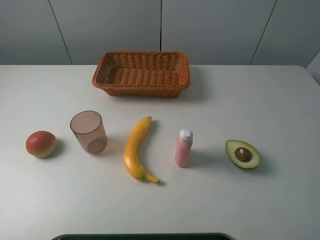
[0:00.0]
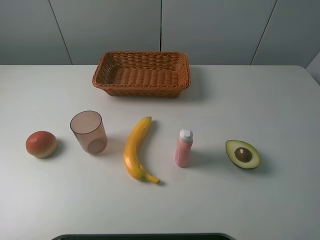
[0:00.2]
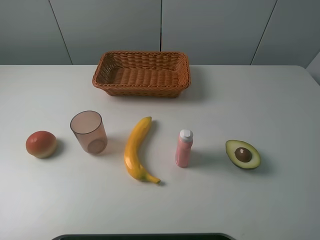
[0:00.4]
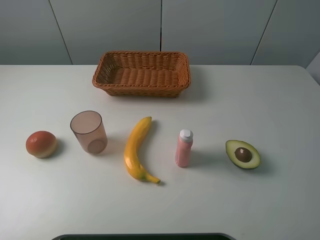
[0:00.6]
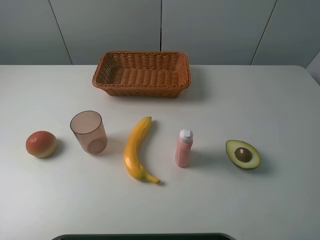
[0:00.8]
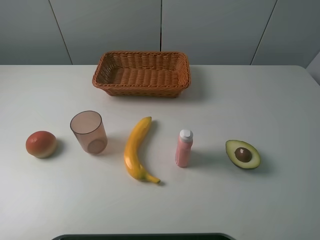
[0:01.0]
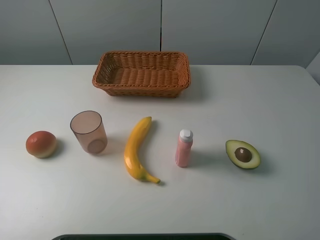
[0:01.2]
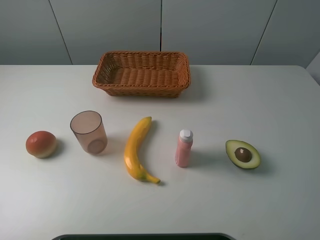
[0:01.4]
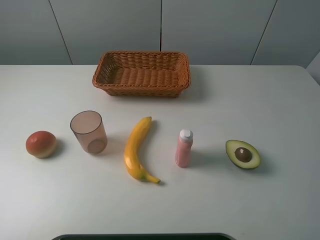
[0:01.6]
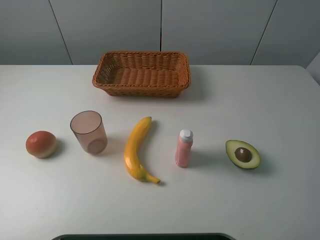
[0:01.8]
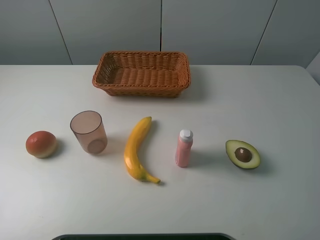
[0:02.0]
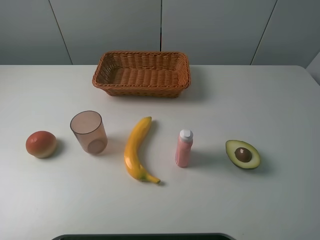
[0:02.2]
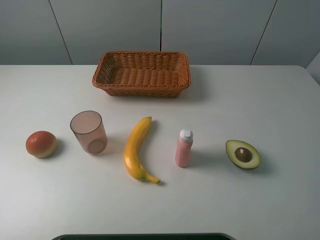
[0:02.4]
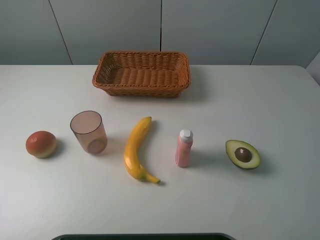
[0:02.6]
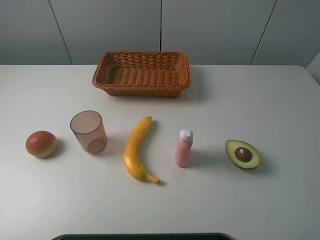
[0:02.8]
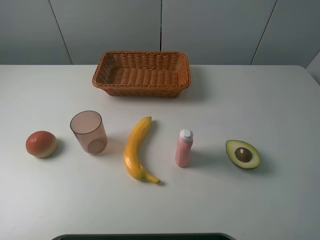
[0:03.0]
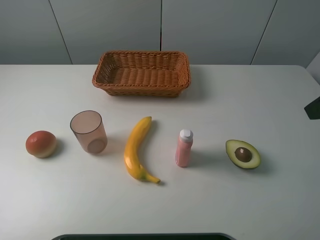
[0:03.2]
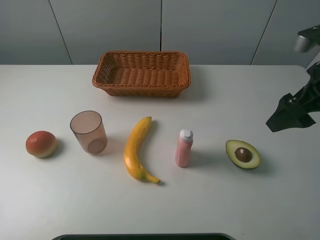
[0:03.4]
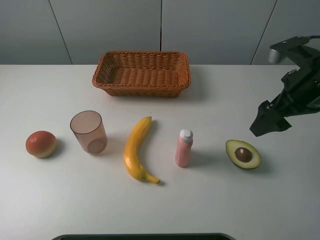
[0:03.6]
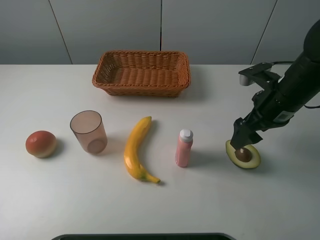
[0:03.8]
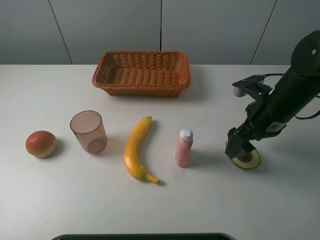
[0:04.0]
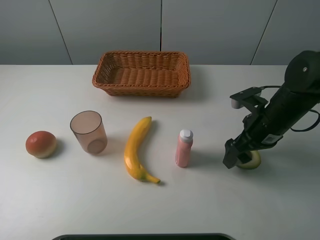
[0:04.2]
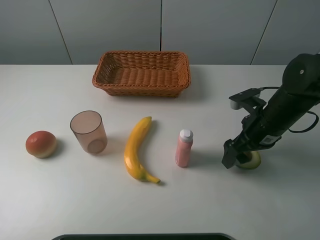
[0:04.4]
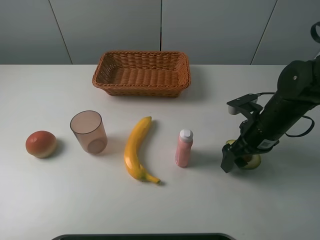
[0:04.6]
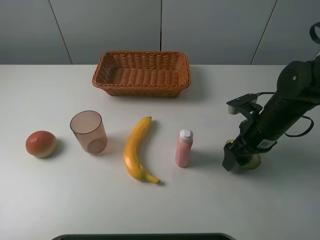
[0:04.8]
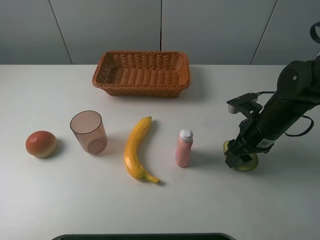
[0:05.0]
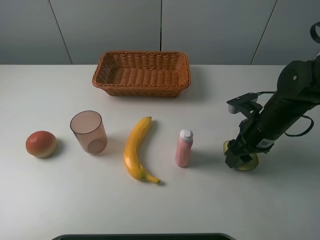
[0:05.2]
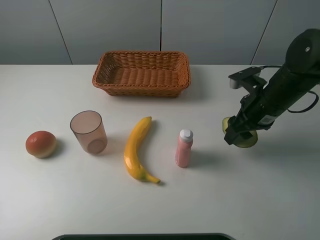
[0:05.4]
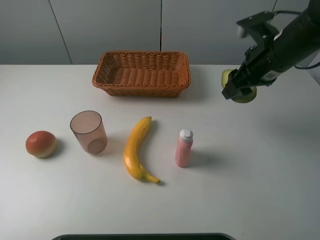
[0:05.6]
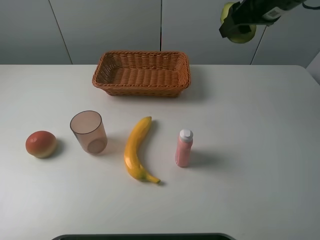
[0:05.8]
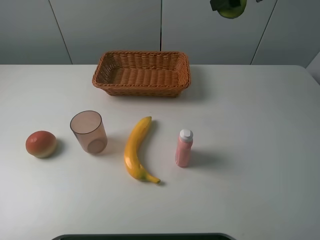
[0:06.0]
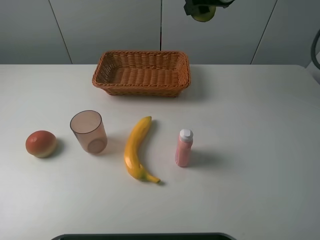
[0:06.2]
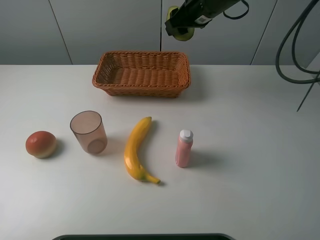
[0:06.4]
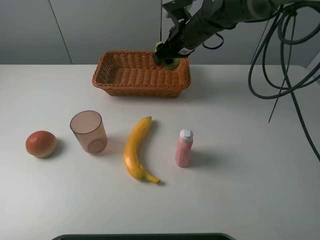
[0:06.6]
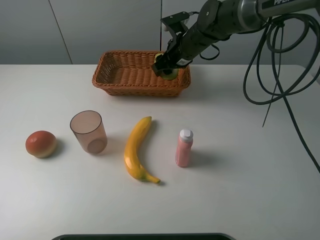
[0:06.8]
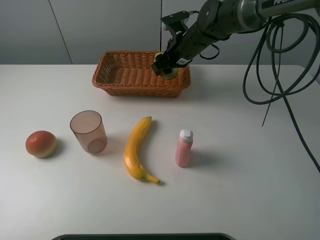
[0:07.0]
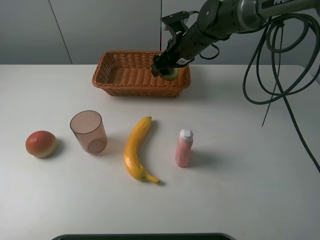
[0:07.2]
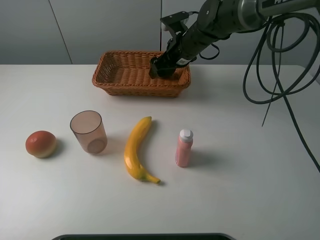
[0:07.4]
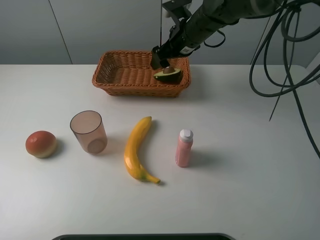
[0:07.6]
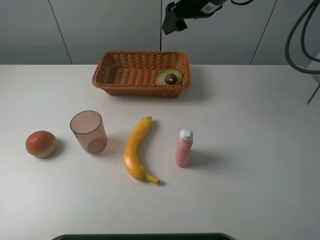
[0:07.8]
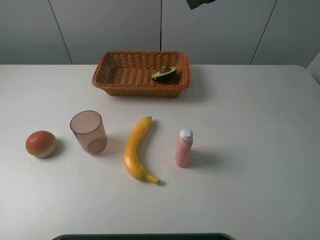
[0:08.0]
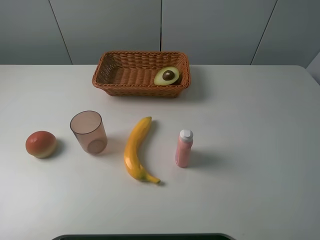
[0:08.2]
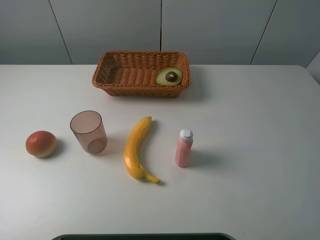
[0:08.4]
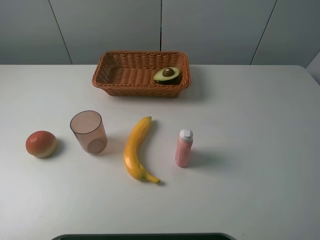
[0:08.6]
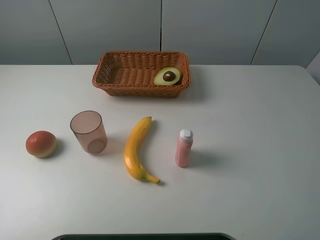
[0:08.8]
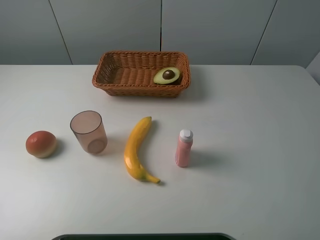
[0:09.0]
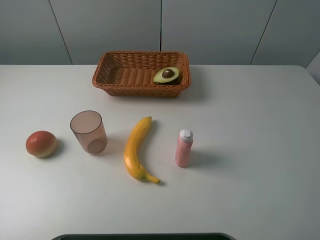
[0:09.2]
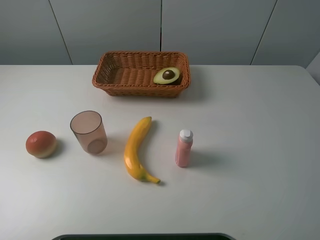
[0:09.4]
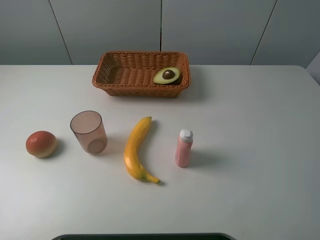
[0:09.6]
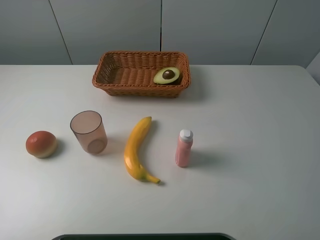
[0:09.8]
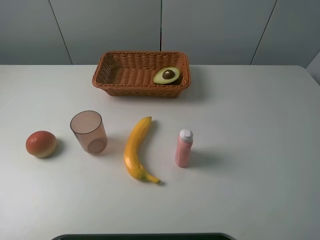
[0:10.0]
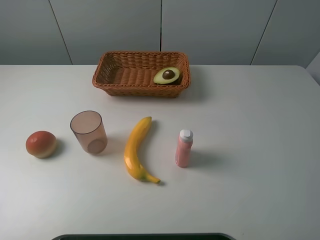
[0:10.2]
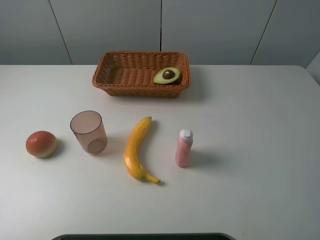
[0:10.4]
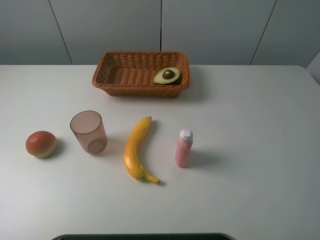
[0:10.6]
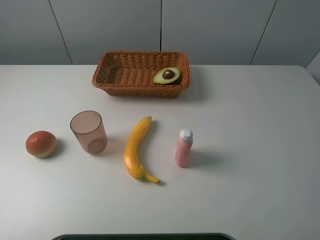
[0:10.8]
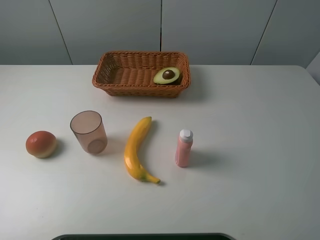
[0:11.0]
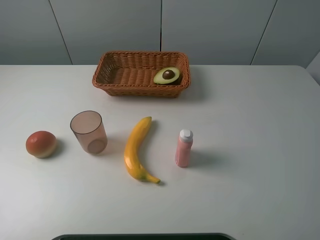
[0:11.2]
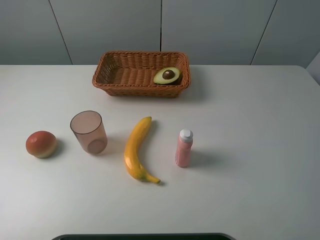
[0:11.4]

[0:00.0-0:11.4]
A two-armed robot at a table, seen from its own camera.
Task of the whole recording: randomly pick up an item from the table and put it in the basket.
Step, 0:00.0 to 0:05.0: Grasp the avocado with the right gripper.
Step, 0:05.2 to 0:07.6: Place the avocado into the basket with the right gripper.
0:00.0 to 0:01.4: Both grippers stay about where they are.
0:02.8 to 0:04.2: The right gripper travels downward and forward by about 25 cm.
0:04.2 to 0:05.6: The right gripper is displaced upward and forward by some 15 cm, and closes its fingers.
0:05.6 to 0:07.2: The right gripper is displaced to the left, forward and downward by roughly 20 cm, and opens.
0:07.2 to 0:08.6: The right gripper goes about 40 cm backward, upward and to the right.
0:10.0 to 0:11.4: Neither gripper changes place.

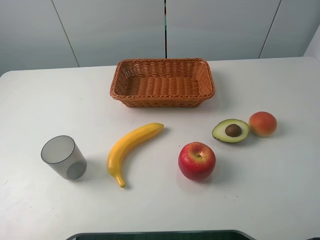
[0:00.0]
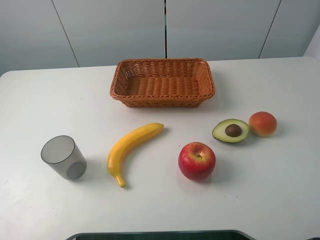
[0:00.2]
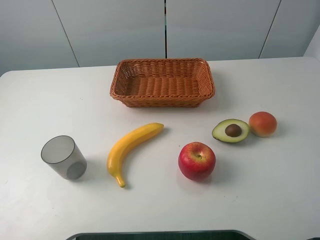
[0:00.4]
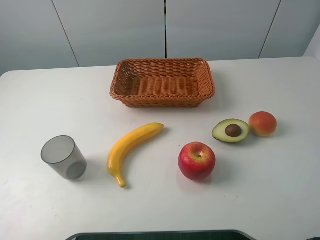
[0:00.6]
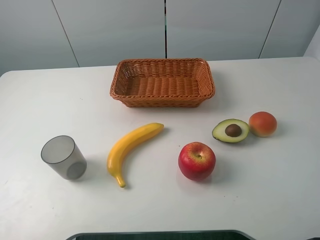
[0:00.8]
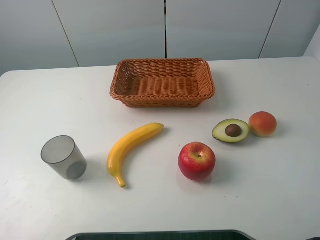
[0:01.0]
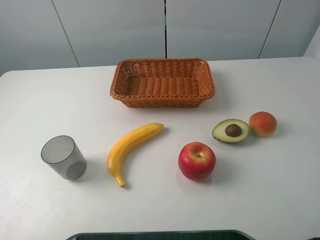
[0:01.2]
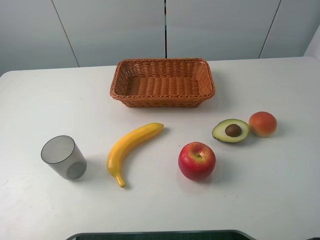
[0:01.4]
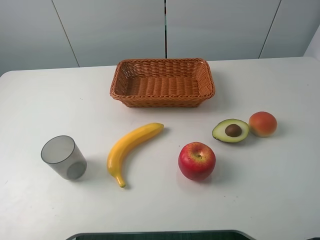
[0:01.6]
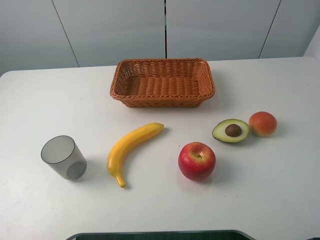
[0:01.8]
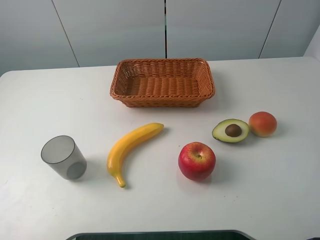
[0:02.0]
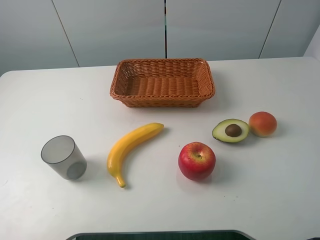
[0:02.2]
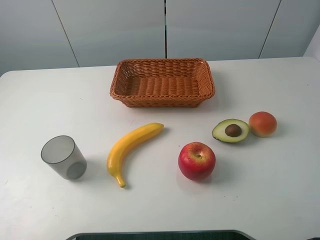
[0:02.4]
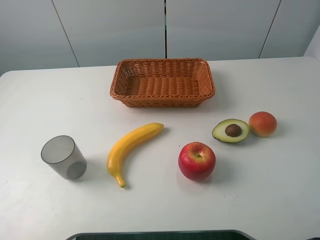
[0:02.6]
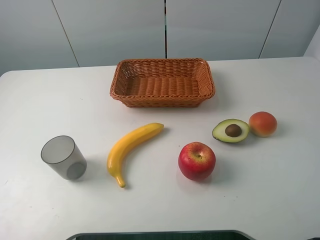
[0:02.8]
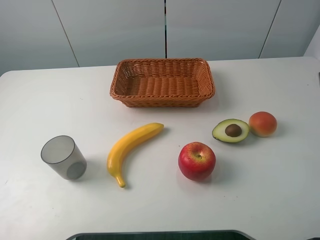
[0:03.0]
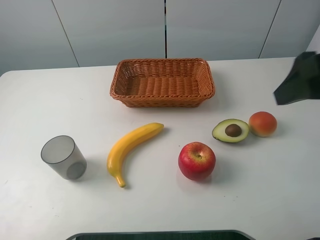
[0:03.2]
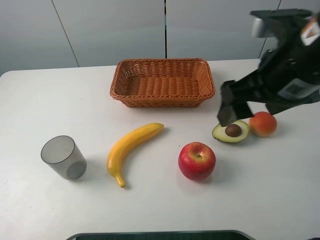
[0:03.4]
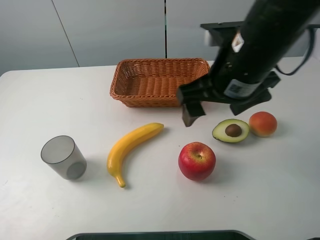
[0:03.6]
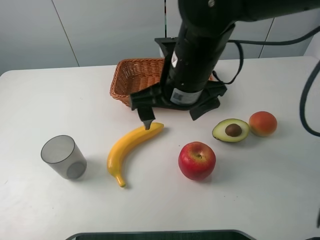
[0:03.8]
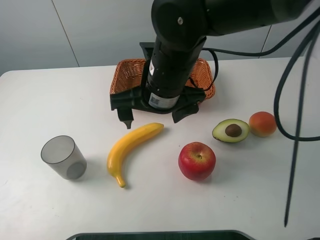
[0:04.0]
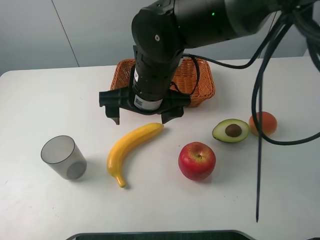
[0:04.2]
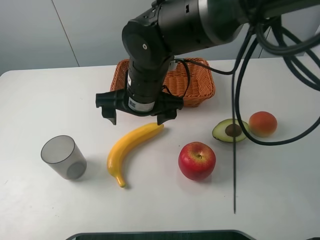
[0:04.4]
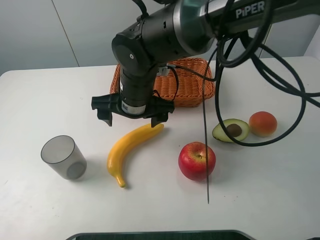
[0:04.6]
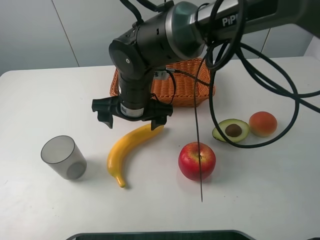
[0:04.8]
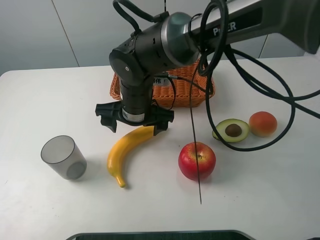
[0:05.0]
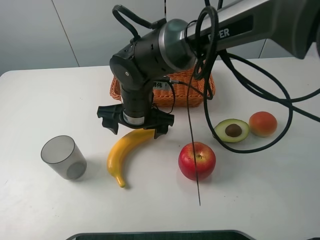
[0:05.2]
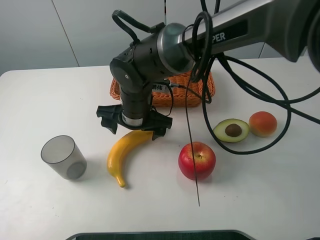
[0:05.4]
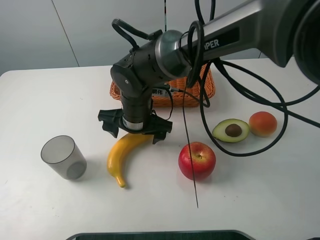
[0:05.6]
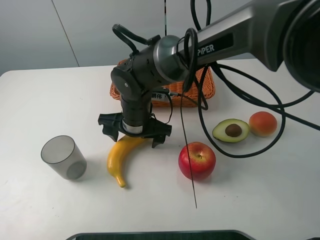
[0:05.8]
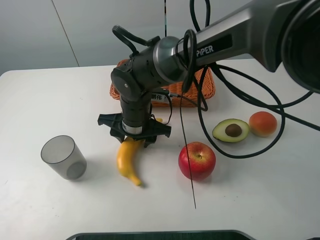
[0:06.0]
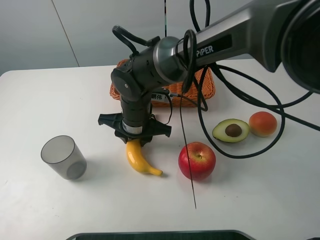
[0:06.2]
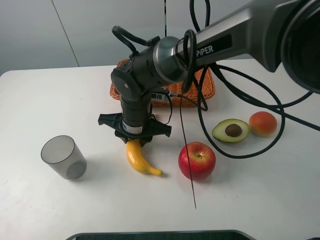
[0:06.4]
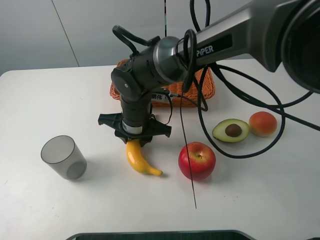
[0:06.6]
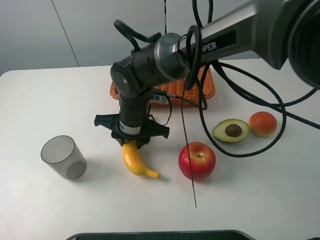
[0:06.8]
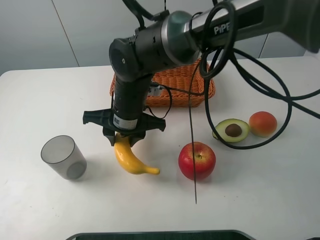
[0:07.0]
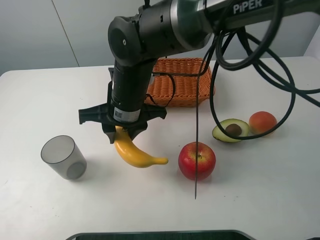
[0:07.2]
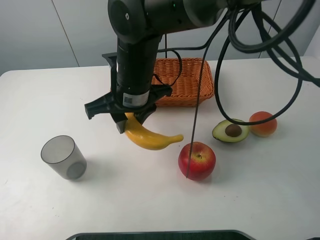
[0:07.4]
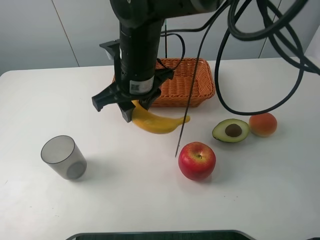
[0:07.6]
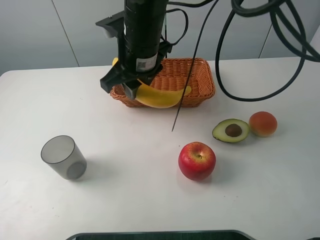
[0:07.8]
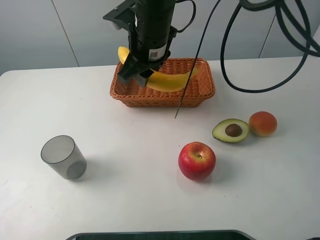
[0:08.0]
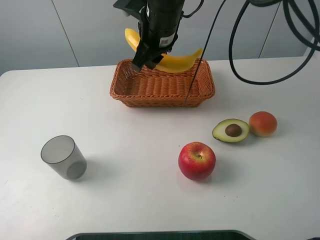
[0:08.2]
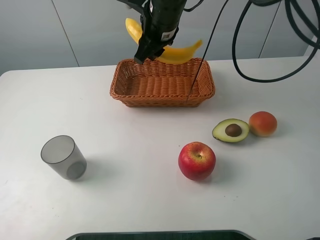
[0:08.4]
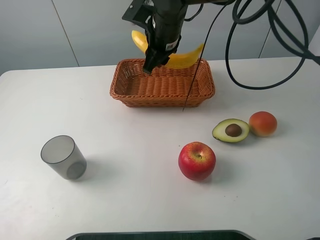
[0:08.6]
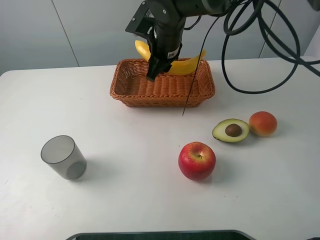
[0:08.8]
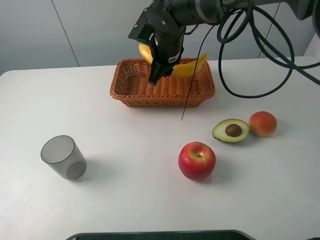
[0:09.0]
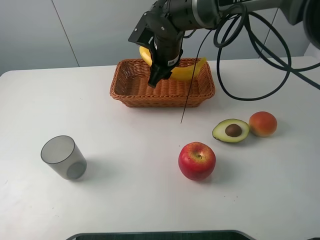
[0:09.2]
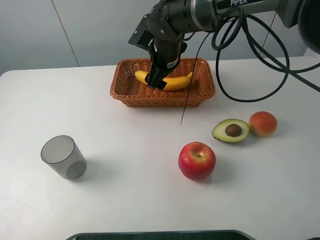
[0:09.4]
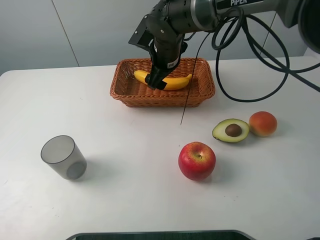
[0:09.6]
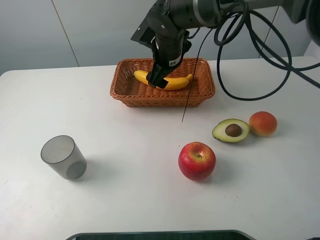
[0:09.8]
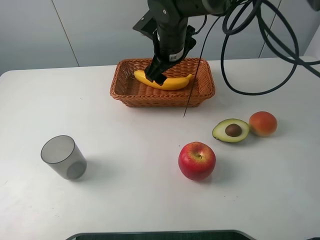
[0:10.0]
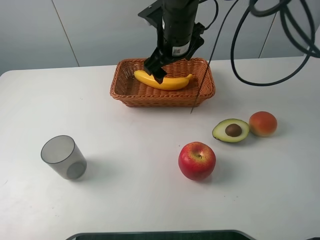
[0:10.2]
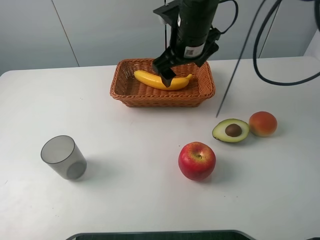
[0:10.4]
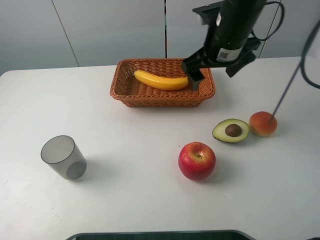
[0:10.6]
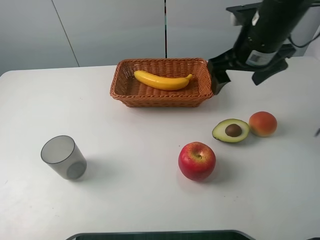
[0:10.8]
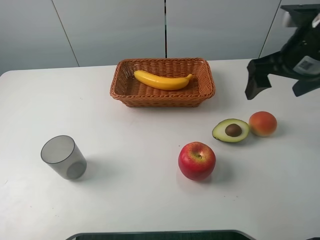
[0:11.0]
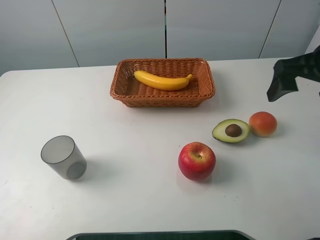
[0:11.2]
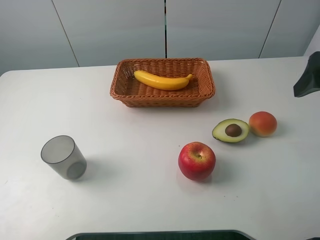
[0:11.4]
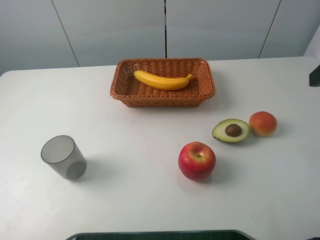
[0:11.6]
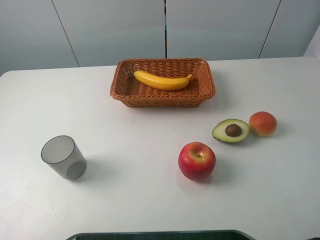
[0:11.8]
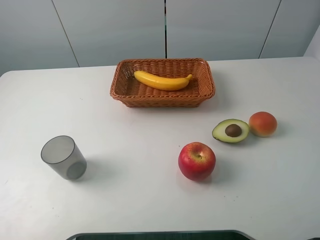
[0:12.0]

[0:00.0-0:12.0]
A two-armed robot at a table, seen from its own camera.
Task of the whole recording: randomly pick up an item from the table and put it in the basket.
Step, 0:00.0 to 0:06.4: Grasp the banana with the right gripper.
Step, 0:06.6 to 0:10.4: Place the banana into the basket with the right gripper.
0:00.0 to 0:01.6: The two grippers keep their place.
0:03.0 to 0:04.4: The right gripper goes some 35 cm to the left and downward.
0:04.4 to 0:06.0: The right gripper moves downward, approximately 10 cm, and closes.
0:06.0 to 0:07.6: The right gripper moves upward, about 10 cm.
0:07.6 to 0:09.0: The right gripper shifts some 15 cm forward and to the right.
0:09.0 to 0:10.4: The right gripper shifts roughly 10 cm upward, backward and to the right, and opens up.
0:10.4 to 0:12.0: The right gripper travels backward, to the right and upward by roughly 35 cm.
